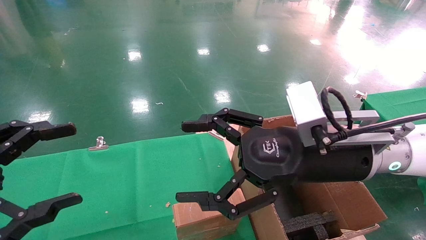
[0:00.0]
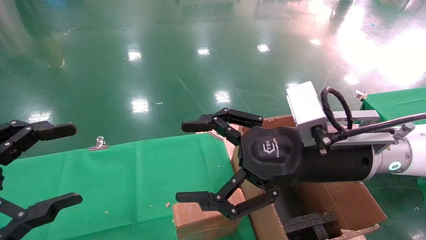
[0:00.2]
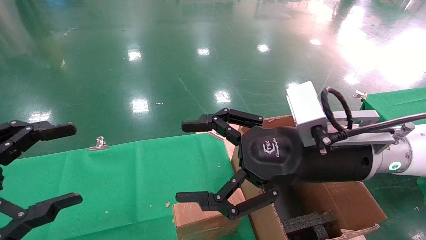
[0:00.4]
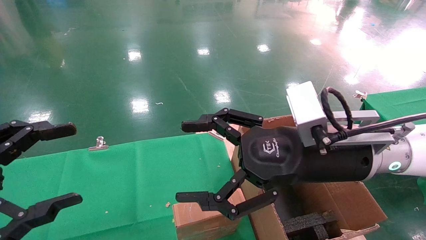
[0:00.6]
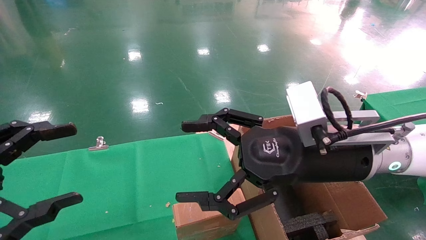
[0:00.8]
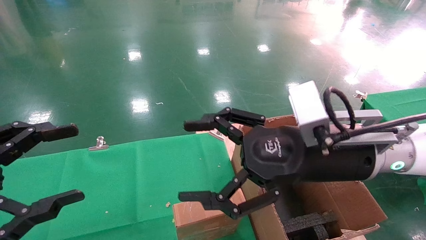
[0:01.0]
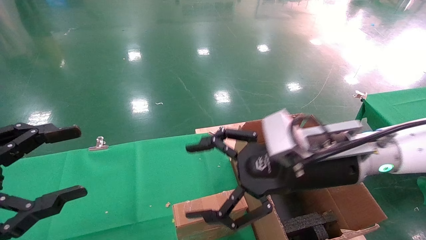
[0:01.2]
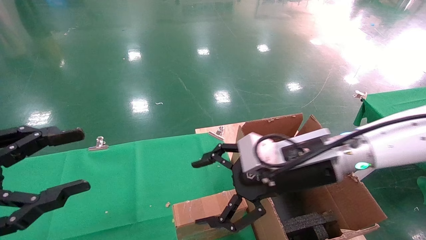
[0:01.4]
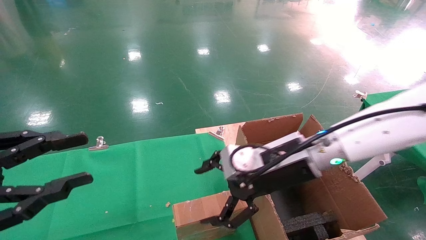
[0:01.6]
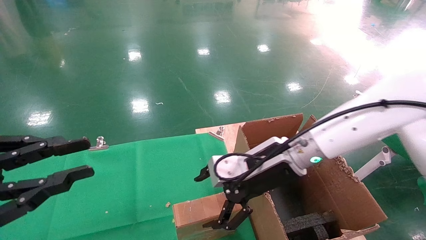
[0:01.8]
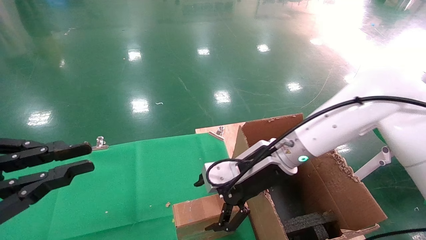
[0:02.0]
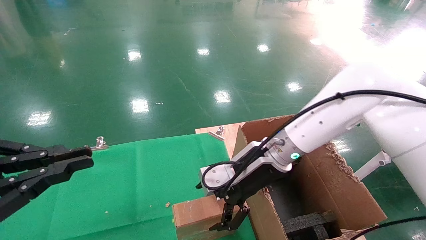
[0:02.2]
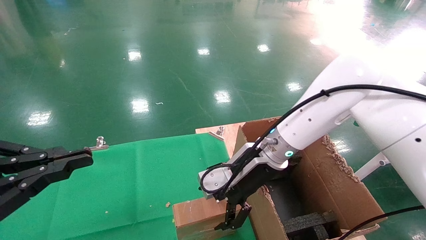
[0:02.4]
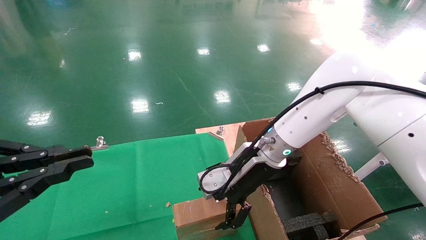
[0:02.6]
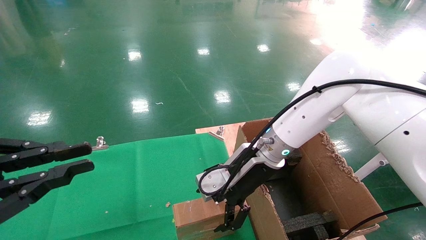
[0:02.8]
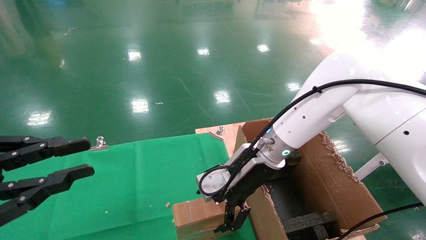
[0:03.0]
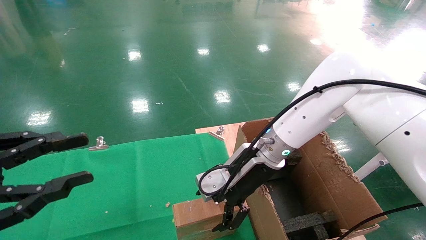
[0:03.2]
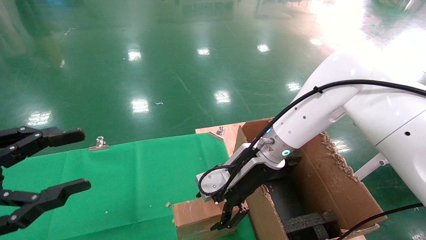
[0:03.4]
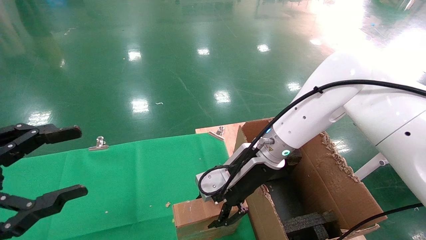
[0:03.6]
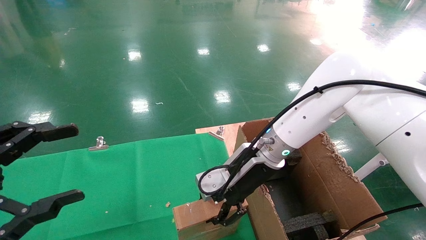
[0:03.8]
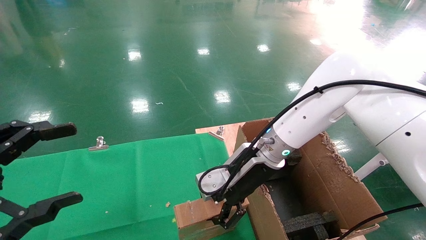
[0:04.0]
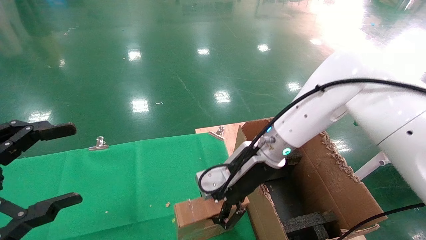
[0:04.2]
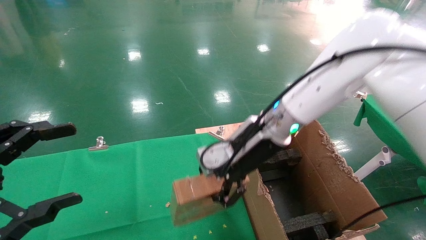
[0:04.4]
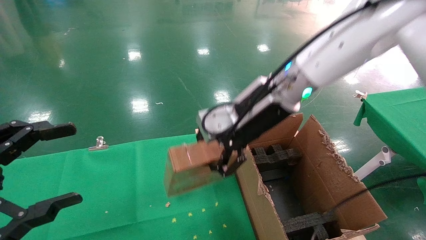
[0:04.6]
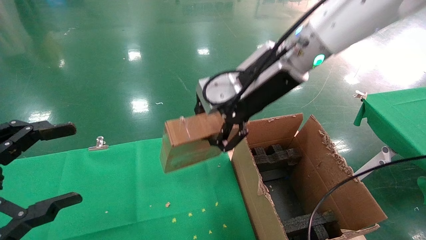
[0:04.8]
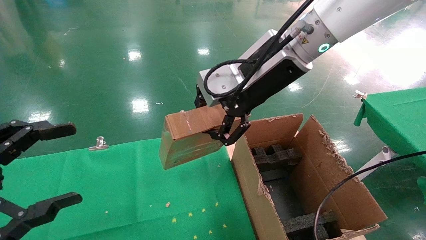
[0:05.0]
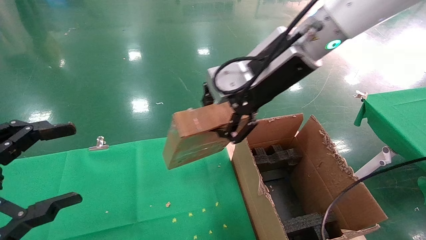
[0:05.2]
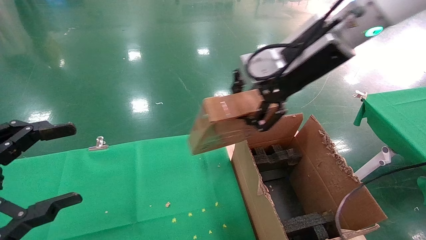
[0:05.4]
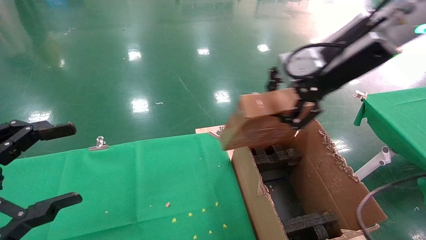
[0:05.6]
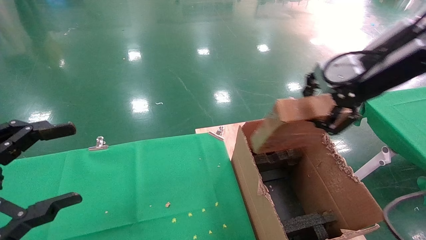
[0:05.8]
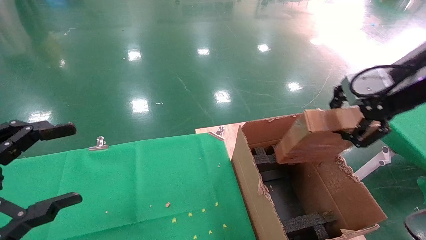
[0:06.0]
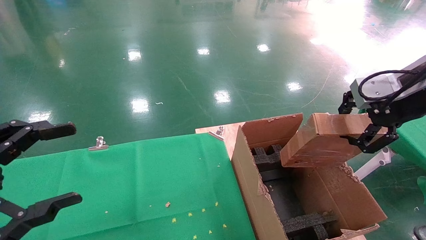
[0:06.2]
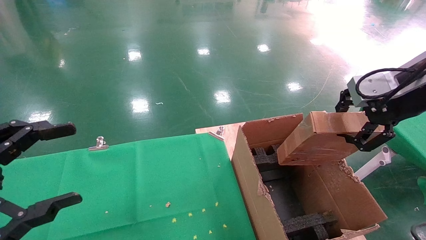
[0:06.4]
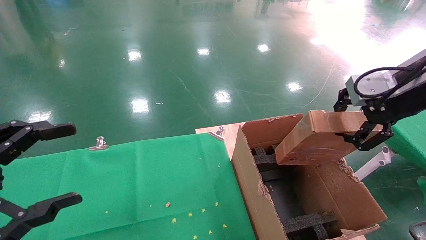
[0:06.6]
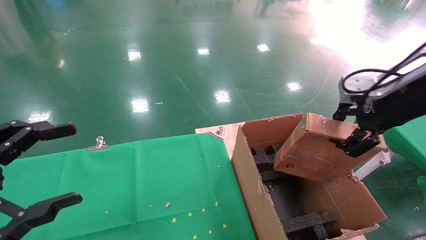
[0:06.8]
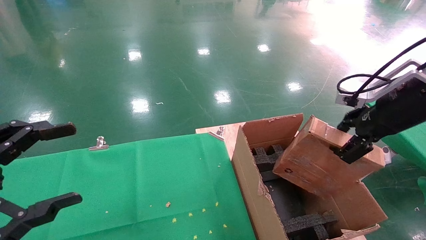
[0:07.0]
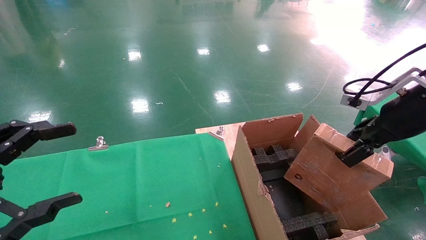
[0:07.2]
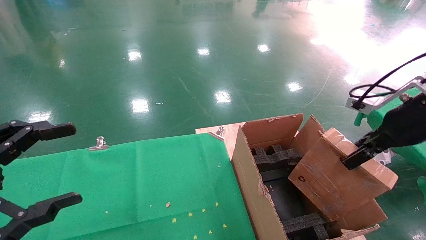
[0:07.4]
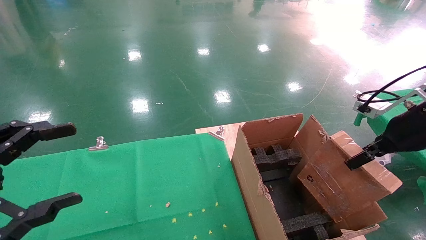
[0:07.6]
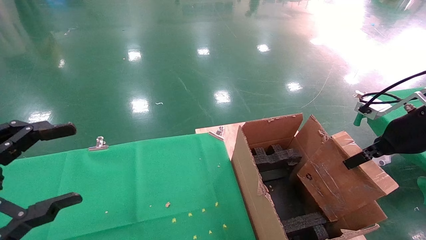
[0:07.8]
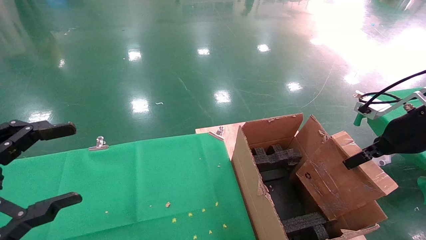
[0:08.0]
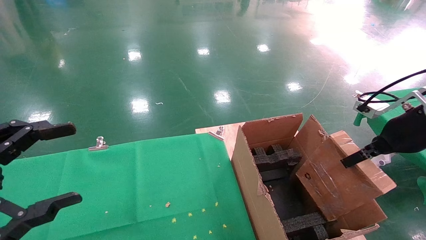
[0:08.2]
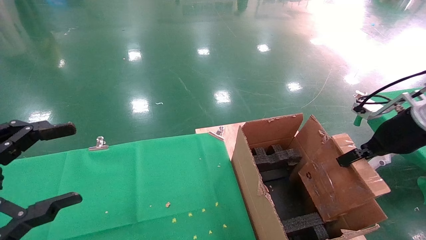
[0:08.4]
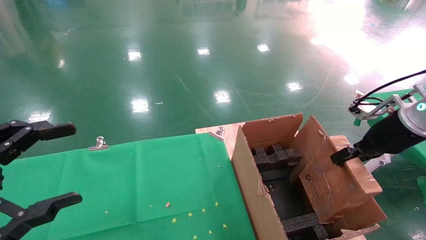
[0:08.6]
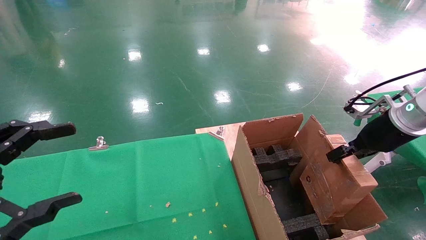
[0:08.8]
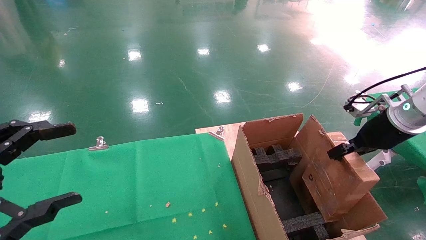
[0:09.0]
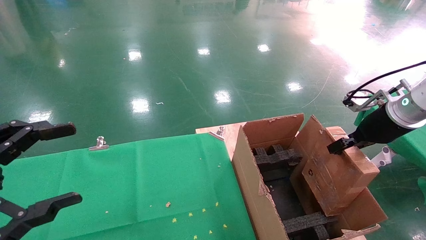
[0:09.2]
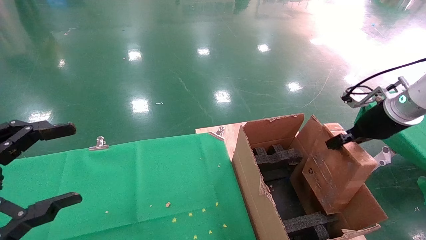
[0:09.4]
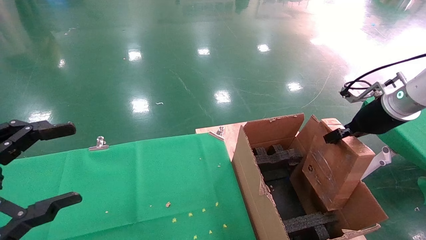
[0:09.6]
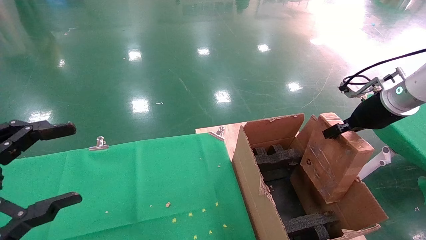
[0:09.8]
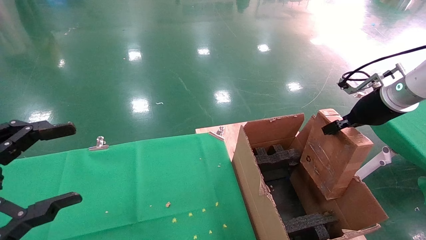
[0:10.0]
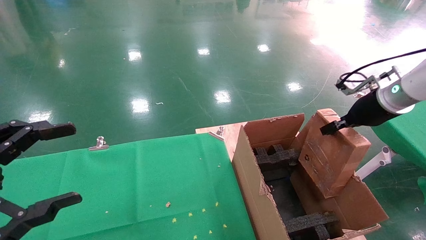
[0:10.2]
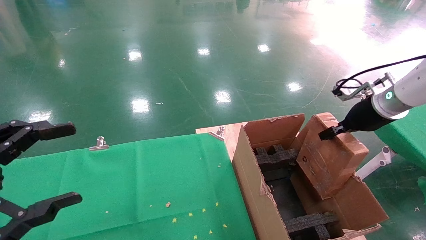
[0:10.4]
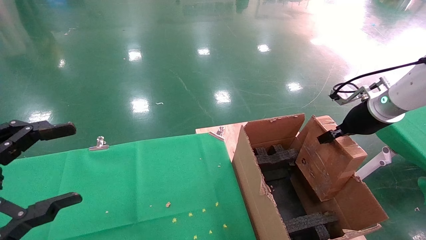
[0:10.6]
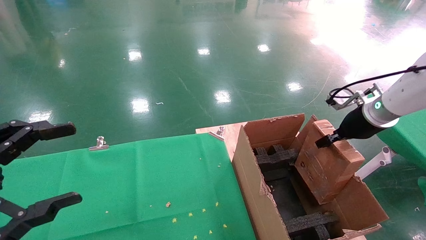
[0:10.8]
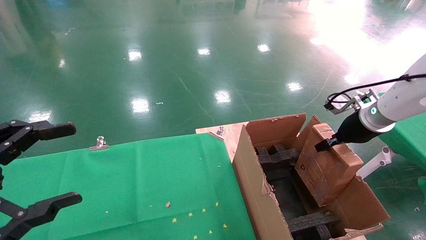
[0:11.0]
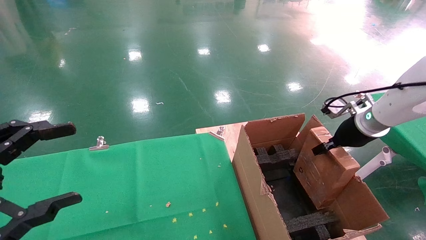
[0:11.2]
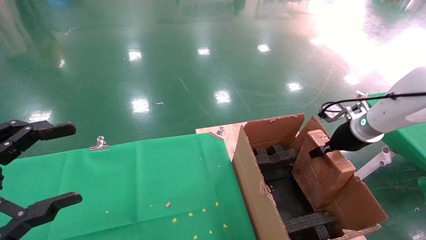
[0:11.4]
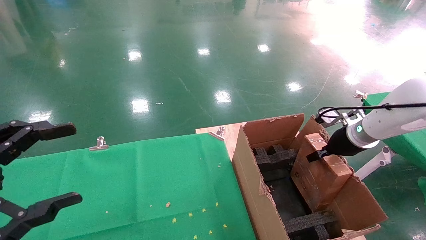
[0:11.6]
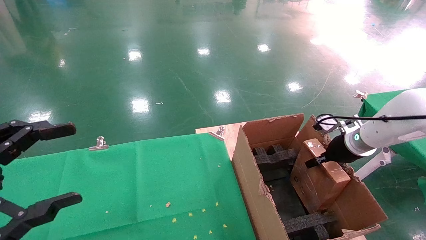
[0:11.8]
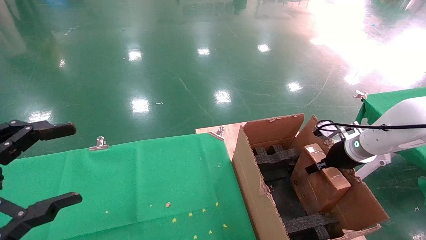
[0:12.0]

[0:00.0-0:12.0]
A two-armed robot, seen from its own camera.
Task of the whole recording: using a robotic arm to pick up a cardboard box and palace it the carton.
Step, 0:01.4 to 0:04.0: Pick up the mouse and the power cord paper box.
0:00.0 to 0:01.6: The left gripper closes up. The right gripper heads forward, covering roughly 5 cm.
0:01.6 to 0:03.0: The left gripper closes. Meanwhile the right gripper is displaced forward by roughly 5 cm.
0:03.0 to 0:04.4: The left gripper opens its fingers. Meanwhile the right gripper is displaced upward by roughly 5 cm, and closes its fingers.
0:04.4 to 0:06.0: The right gripper moves to the right, upward and backward, some 30 cm.
0:06.0 to 0:07.6: The right gripper shifts some 10 cm downward and to the right.
0:07.6 to 0:09.0: The right gripper heads forward, covering about 5 cm.
0:09.0 to 0:10.4: The grippers make only small movements.
0:10.4 to 0:12.0: The right gripper is displaced downward by some 10 cm.

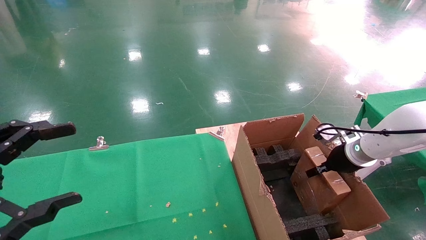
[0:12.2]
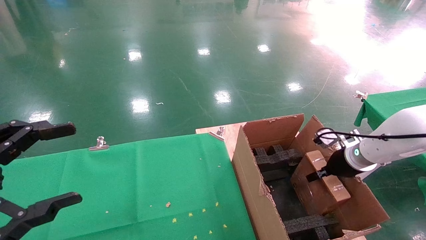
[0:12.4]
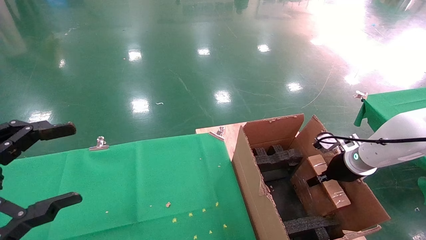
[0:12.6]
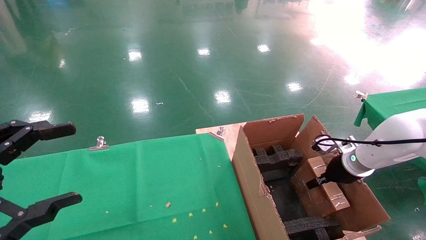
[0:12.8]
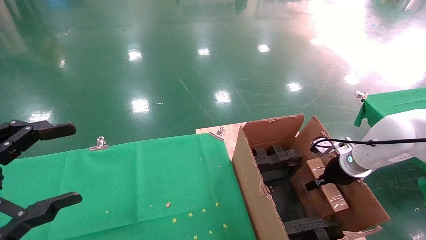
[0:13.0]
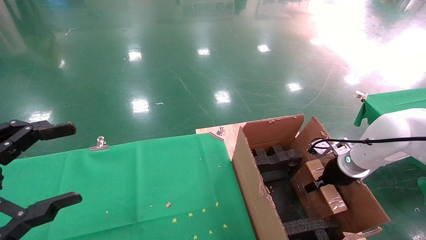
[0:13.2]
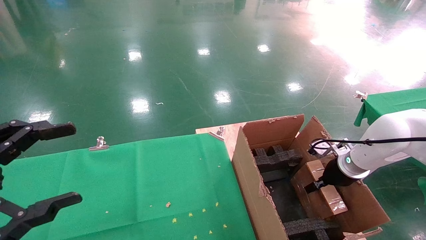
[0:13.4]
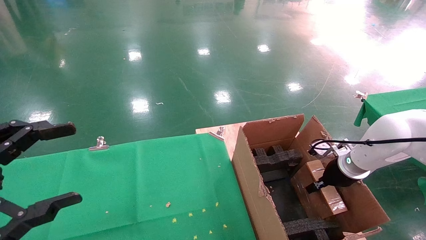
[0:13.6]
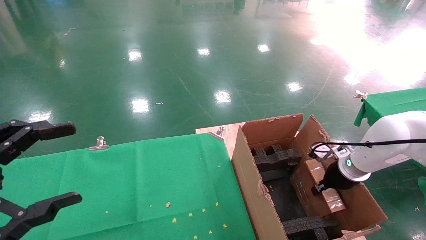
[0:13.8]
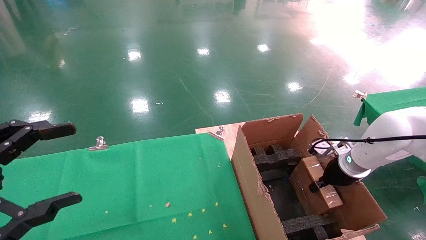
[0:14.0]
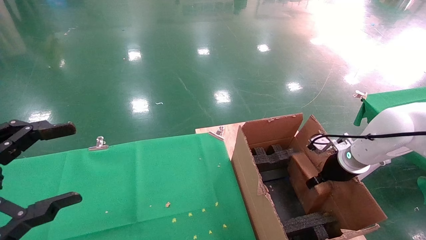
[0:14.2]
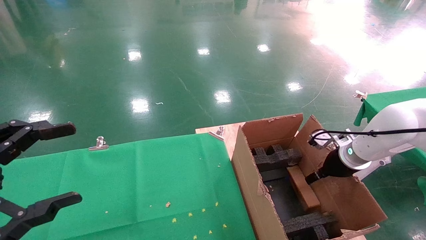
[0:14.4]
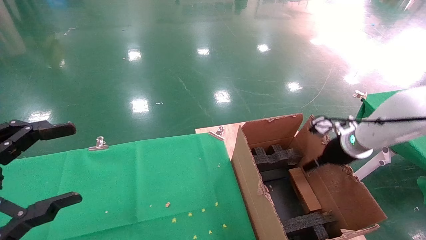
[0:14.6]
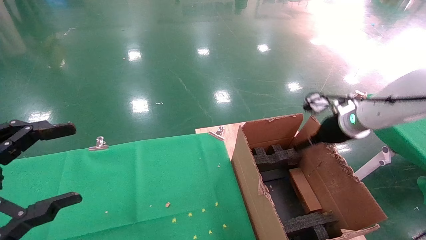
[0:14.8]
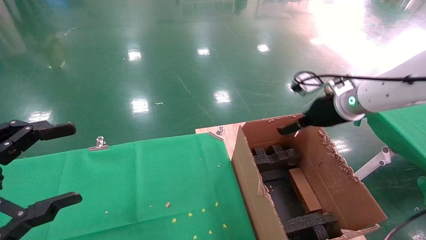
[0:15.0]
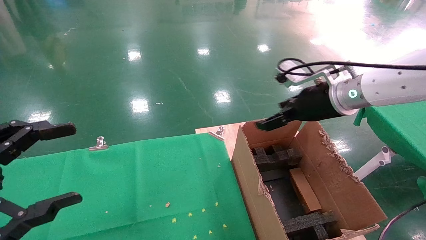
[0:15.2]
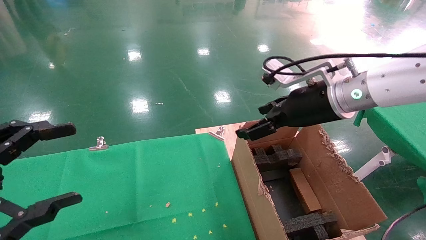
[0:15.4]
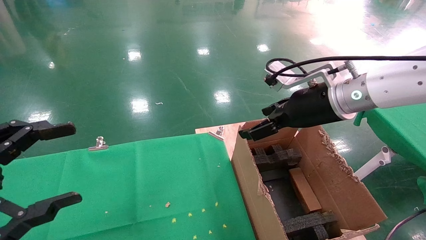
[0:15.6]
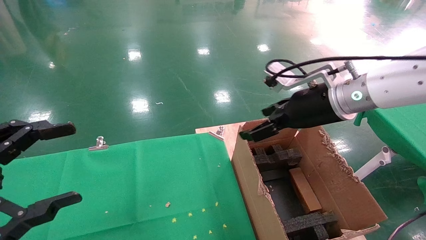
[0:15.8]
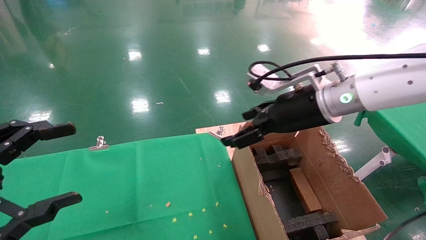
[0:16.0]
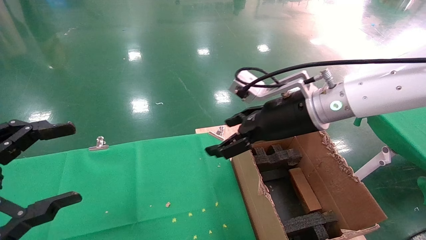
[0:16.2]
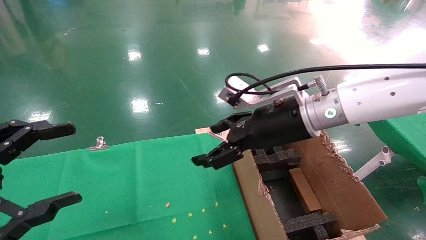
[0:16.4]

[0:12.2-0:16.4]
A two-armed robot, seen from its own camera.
Task of the whole recording: using a robotic arm to pick up a cardboard box and palace it the carton.
Step, 0:12.2 to 0:14.8: Place the mouse and the power cord paper box into the container.
0:12.2 to 0:13.6: There are only small adjustments of the grippers.
0:13.6 to 0:15.0: The right gripper heads upward and to the left, covering approximately 20 cm, and opens up.
0:15.0 to 0:16.4: The right gripper travels to the left and backward by approximately 15 cm.
